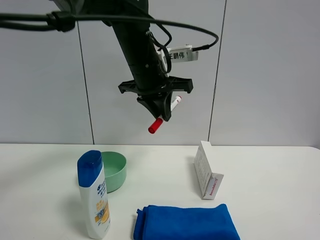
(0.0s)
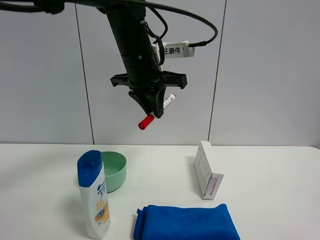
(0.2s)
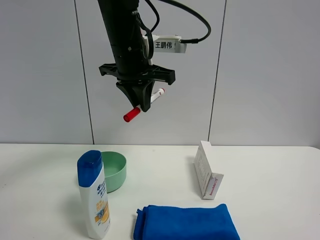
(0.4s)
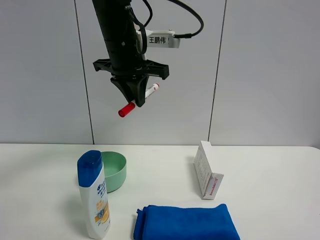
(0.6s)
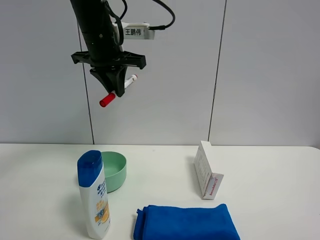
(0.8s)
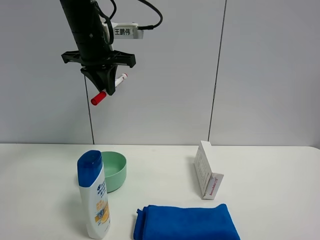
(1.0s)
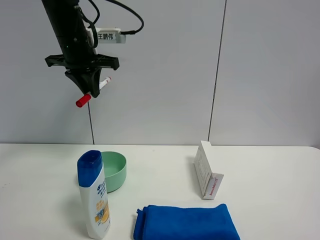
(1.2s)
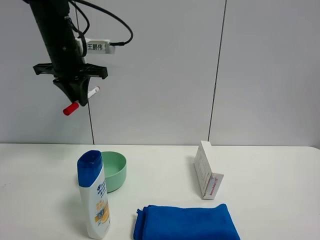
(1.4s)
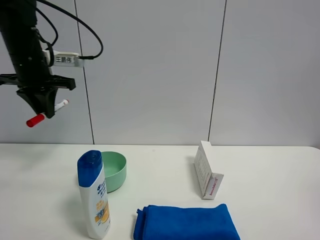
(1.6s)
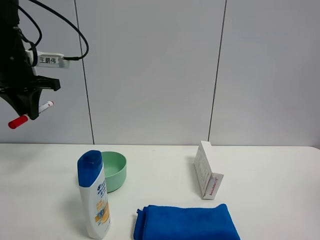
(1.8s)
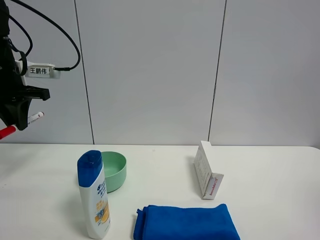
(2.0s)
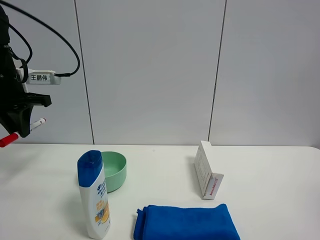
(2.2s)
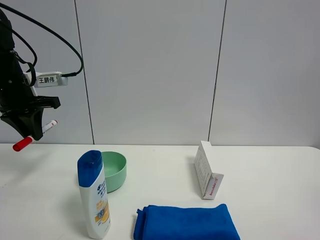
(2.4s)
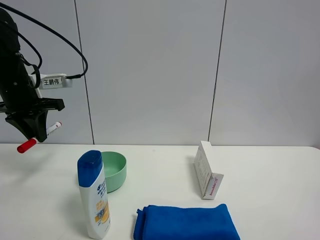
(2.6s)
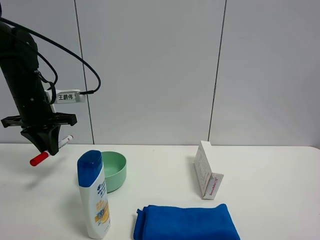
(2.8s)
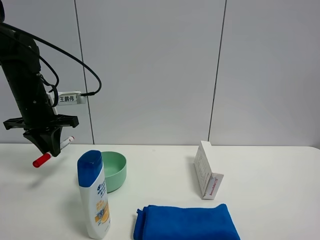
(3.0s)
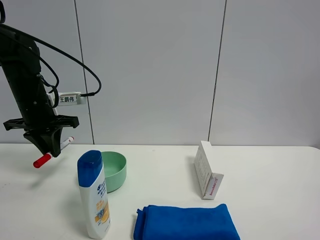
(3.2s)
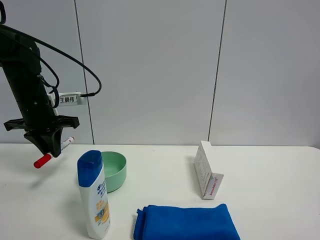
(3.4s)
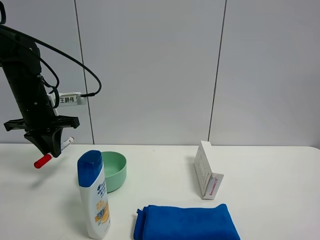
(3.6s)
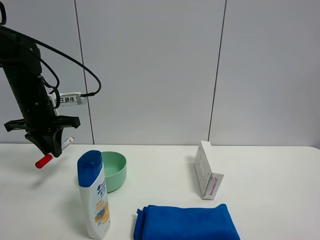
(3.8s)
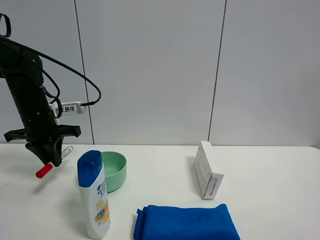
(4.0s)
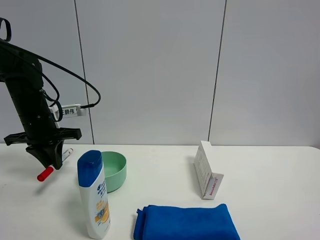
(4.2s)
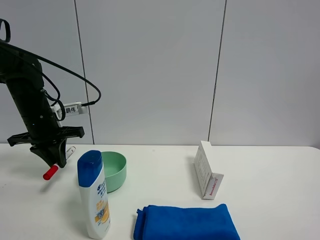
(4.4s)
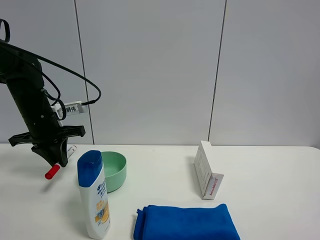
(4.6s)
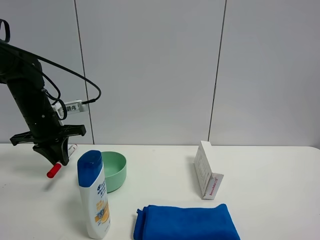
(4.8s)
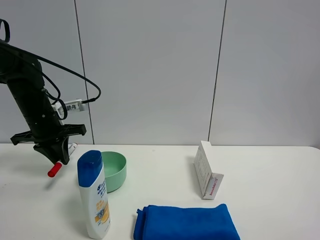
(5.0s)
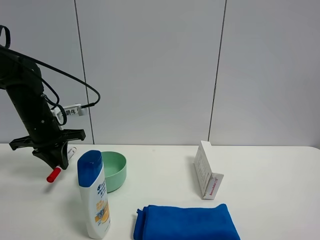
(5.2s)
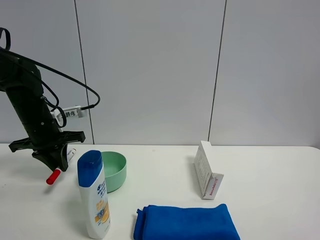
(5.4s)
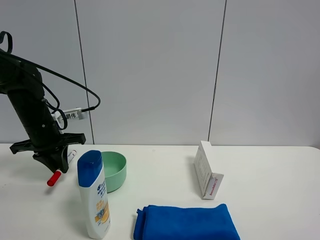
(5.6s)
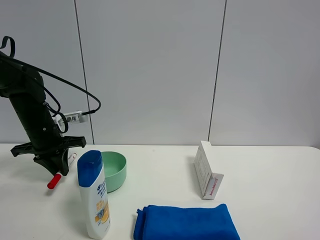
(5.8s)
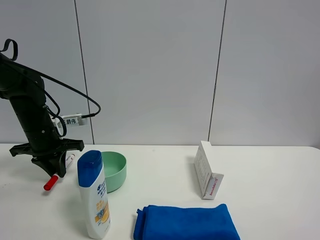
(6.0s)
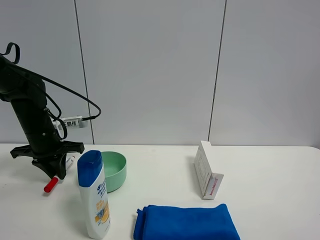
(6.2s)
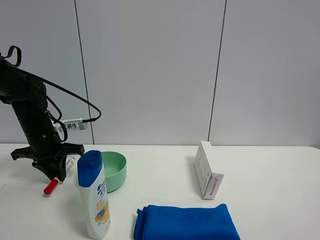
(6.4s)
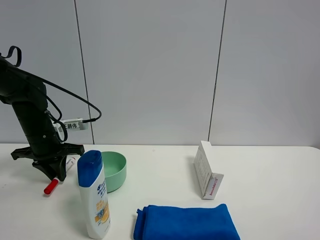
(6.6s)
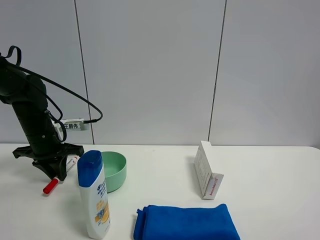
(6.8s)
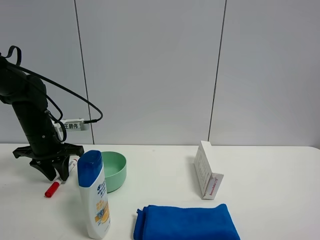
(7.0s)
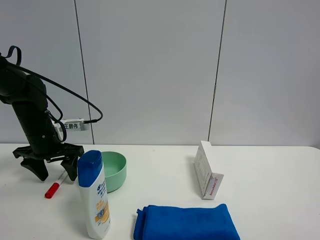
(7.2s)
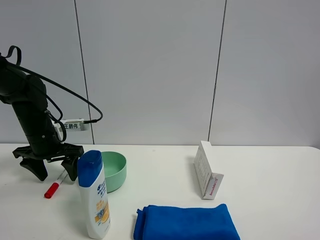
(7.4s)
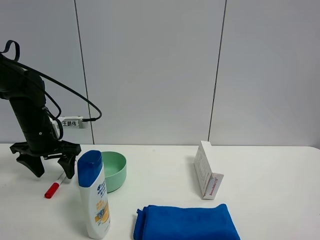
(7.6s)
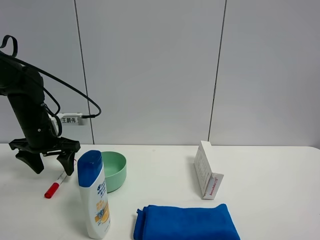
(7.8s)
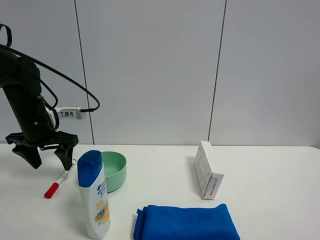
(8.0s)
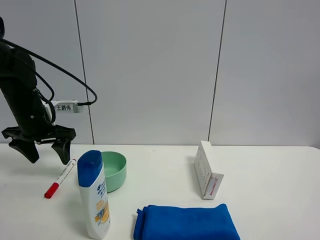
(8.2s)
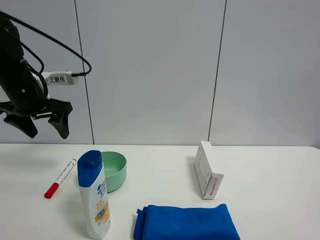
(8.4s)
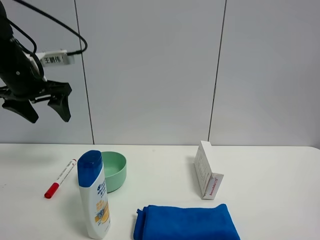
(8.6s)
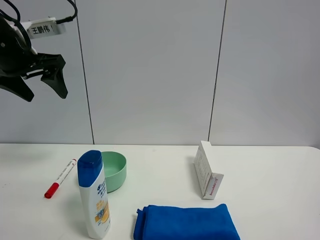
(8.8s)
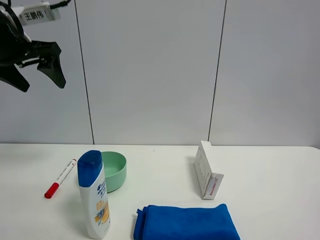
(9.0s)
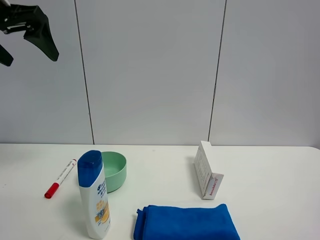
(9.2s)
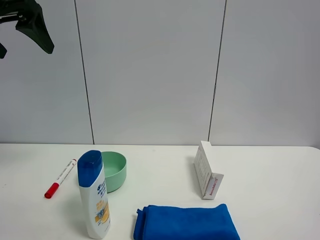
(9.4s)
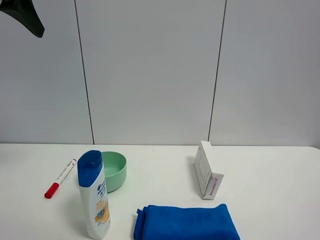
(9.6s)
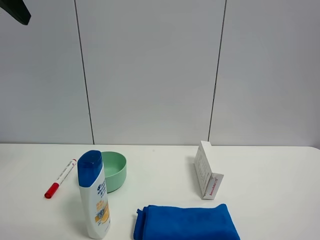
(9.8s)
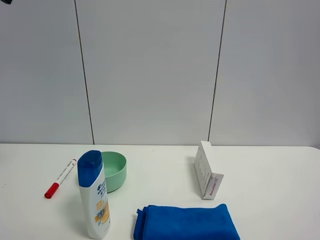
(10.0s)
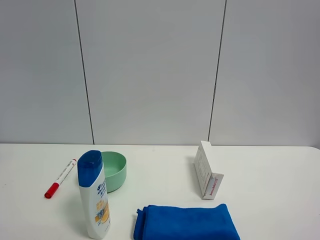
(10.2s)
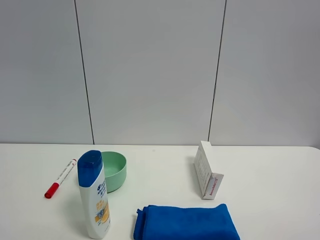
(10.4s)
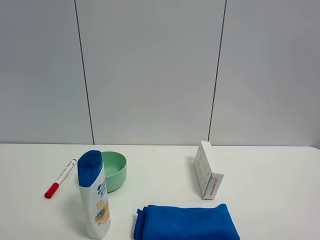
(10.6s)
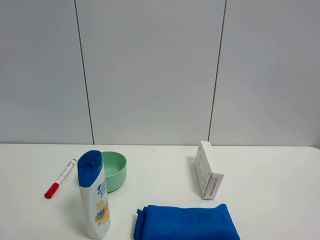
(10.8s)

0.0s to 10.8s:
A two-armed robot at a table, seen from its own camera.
Task of the whole recording: the gripper move the object.
Step, 0.0s to 7.0s: Place the red marker pen on the table with the left gripper.
0.0s to 1.6s: The left gripper moves to the left, approximately 25 cm.
1.6s to 3.0s: The left gripper travels downward by about 10 cm.
3.0s to 4.6s: The grippers move only a little.
4.6s to 6.2s: The grippers make only small movements.
6.2s to 7.8s: The left gripper opens up.
7.8s to 9.2s: The left gripper shifts about 25 cm upward.
9.2s to 10.8s: The left gripper is displaced backward by roughly 20 cm.
